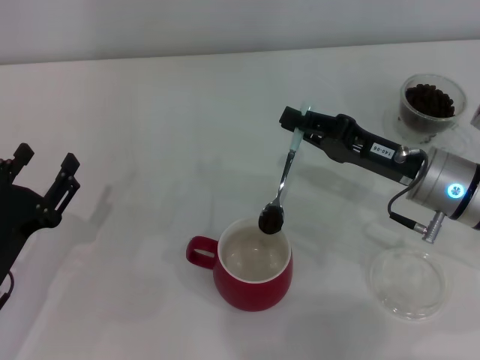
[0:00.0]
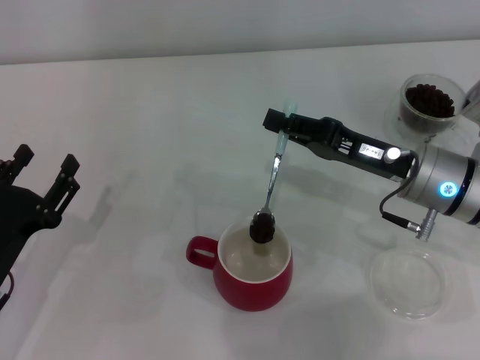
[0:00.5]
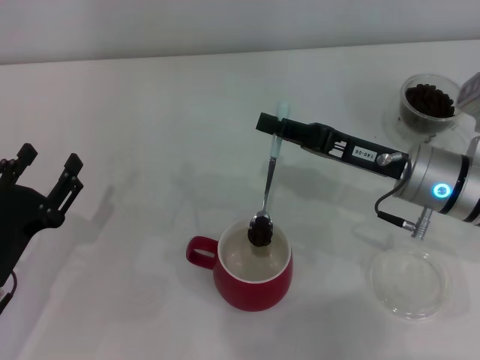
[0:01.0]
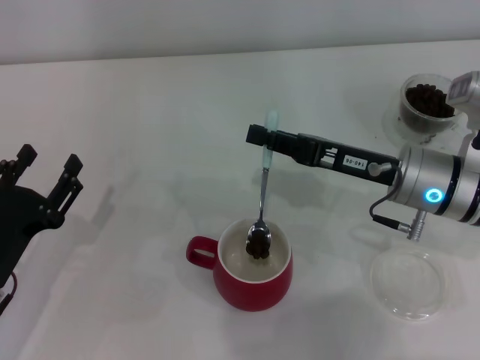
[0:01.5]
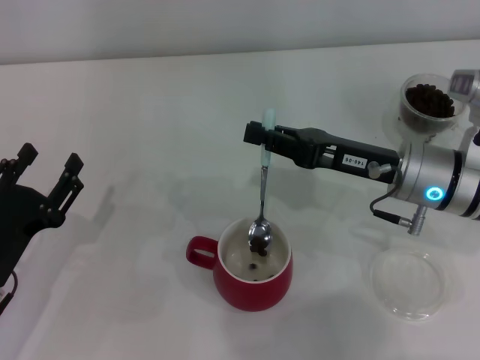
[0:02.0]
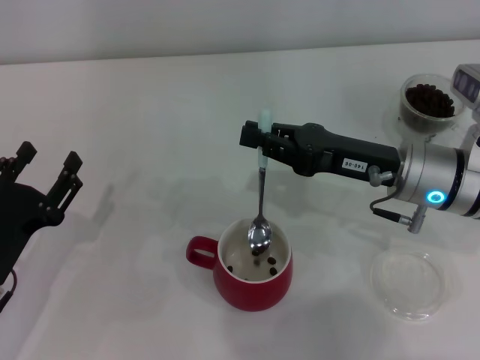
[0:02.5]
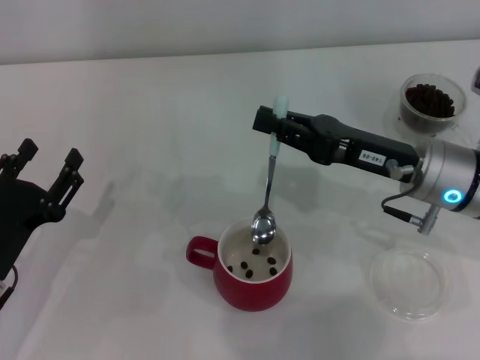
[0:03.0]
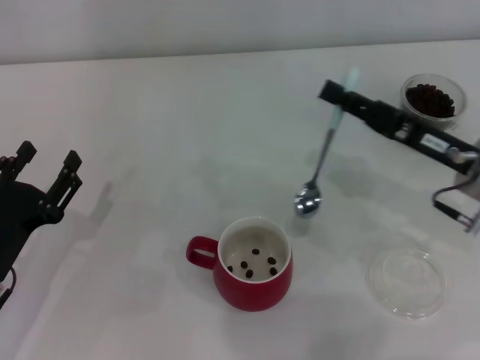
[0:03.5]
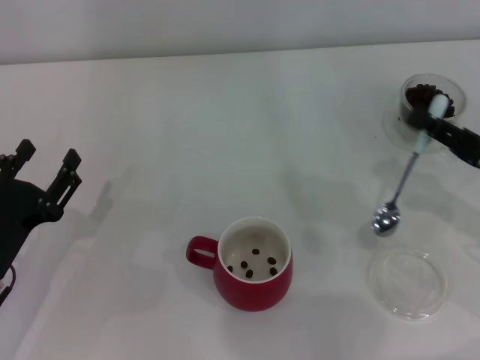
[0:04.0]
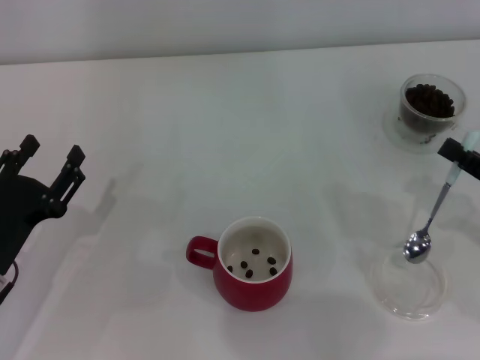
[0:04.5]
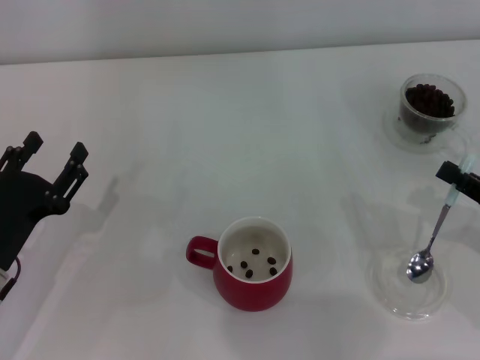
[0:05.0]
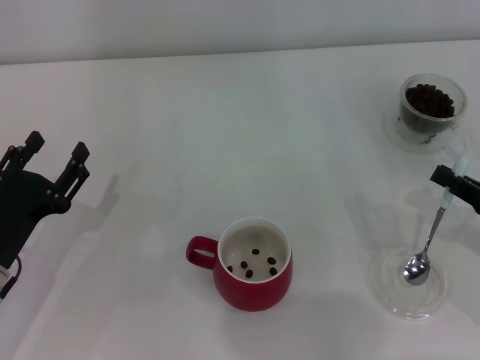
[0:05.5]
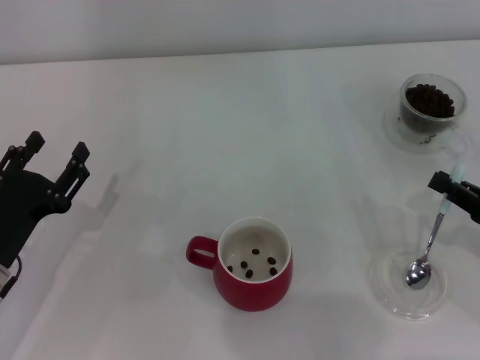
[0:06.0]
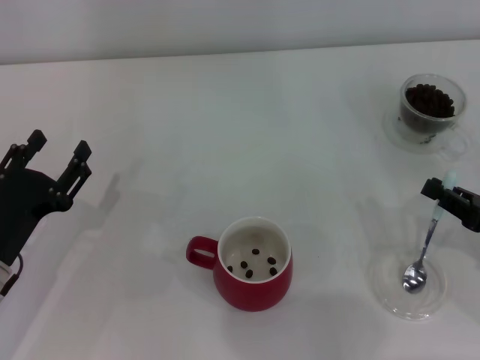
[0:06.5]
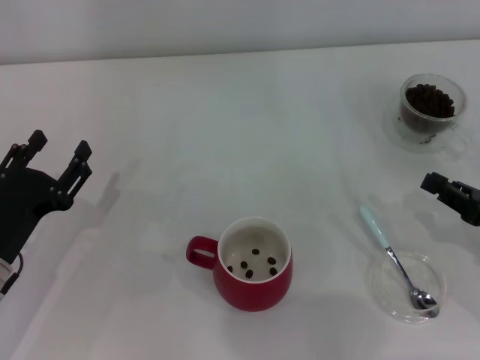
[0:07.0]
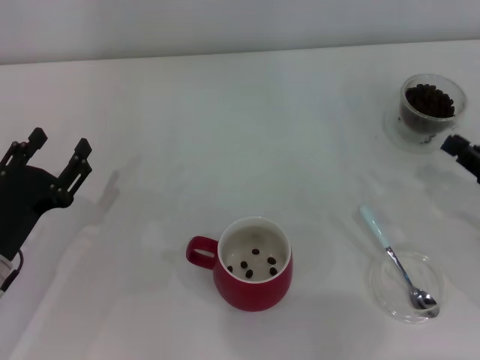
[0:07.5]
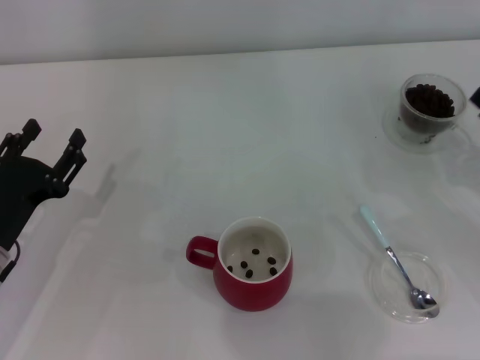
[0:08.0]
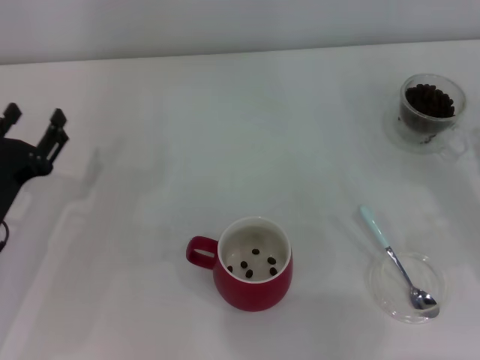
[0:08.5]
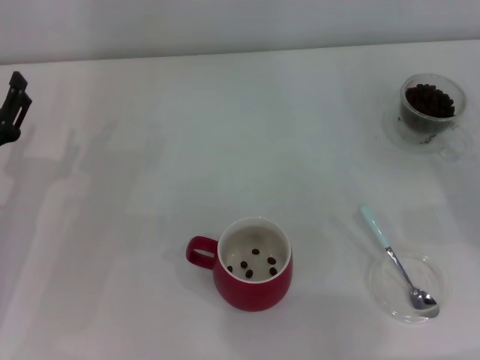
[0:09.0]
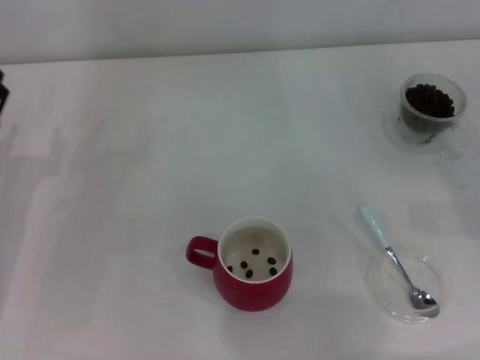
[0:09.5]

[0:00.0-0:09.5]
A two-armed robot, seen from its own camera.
Task of the whole recording: Use a blue spoon to take out the coffee beans from the glass and pour them into the red cup.
Step, 0:00.0 to 0:03.0: Scoop a spoonful of beans into the cup with the right gripper.
Step, 0:03.5 to 0:07.0: Place the spoon back in its original place with the right gripper.
0:02.0 to 0:04.0: The right gripper travels to the right and backward by roughly 15 cm.
0:04.0 to 0:05.5: The right gripper shifts by approximately 5 cm.
0:05.5 to 0:07.5: The grippers move only a little.
0:07.5 to 0:09.5: The left gripper shifts by some 5 cm.

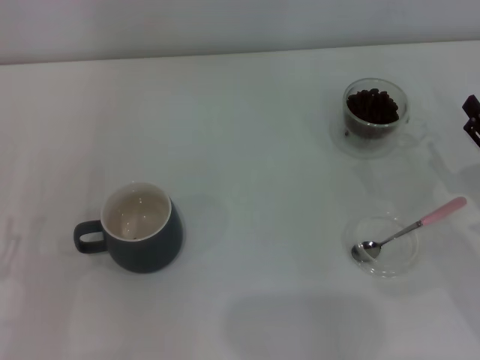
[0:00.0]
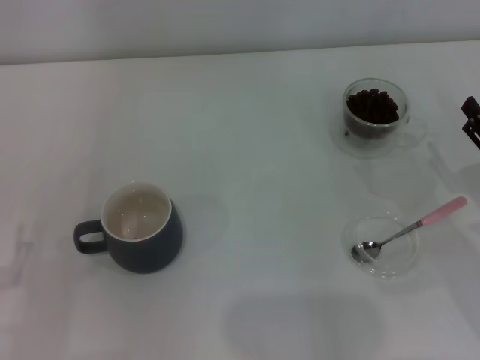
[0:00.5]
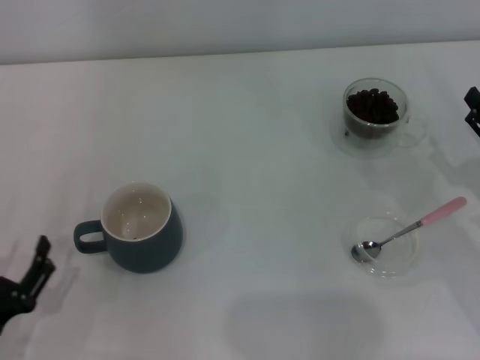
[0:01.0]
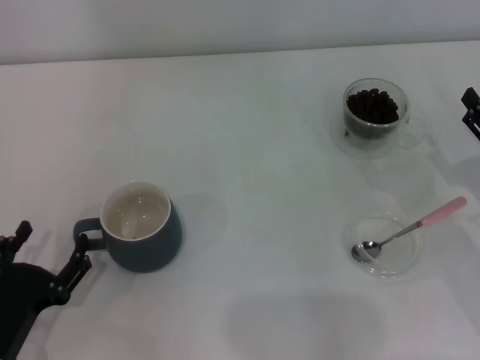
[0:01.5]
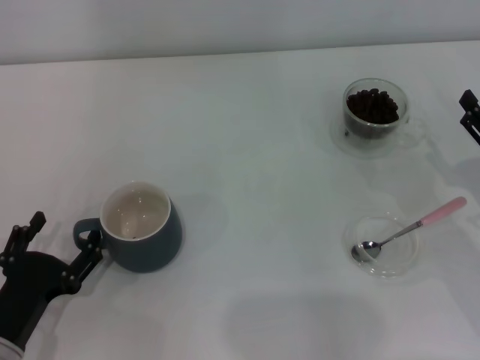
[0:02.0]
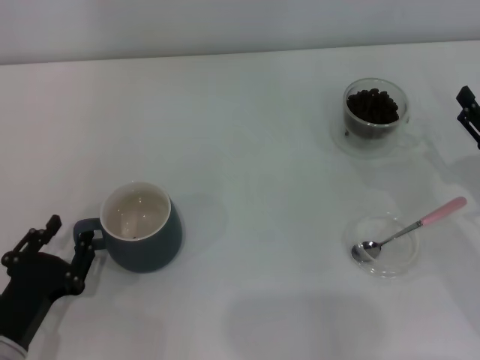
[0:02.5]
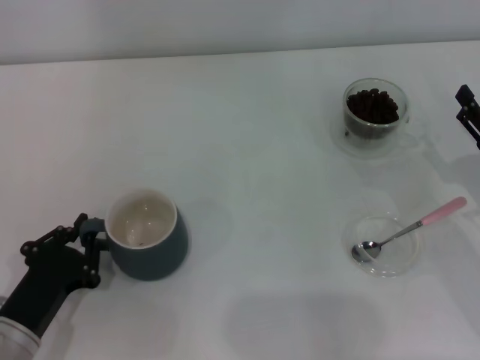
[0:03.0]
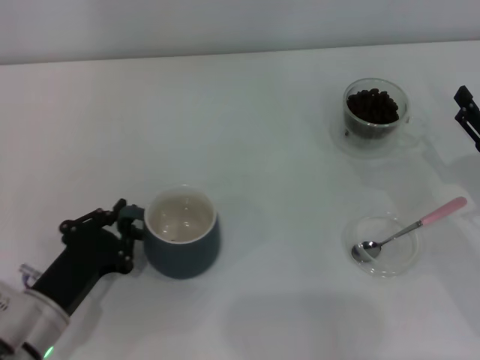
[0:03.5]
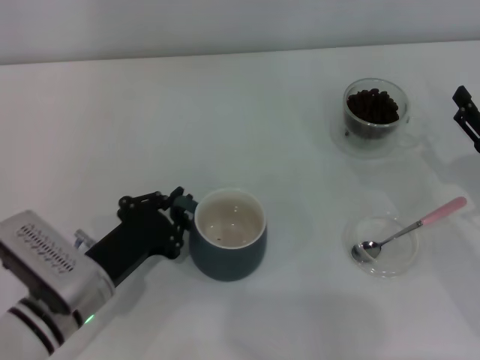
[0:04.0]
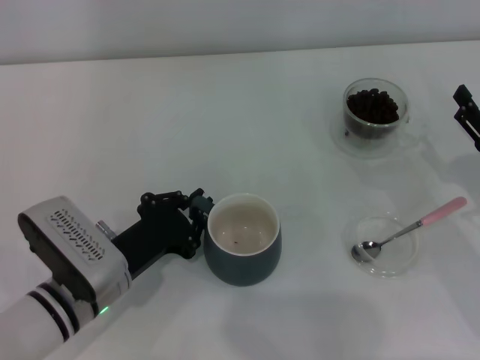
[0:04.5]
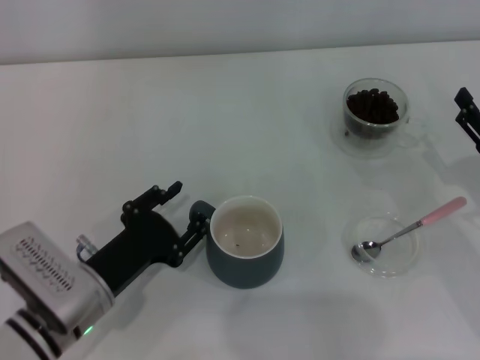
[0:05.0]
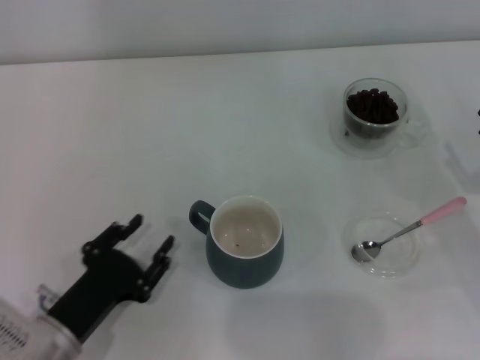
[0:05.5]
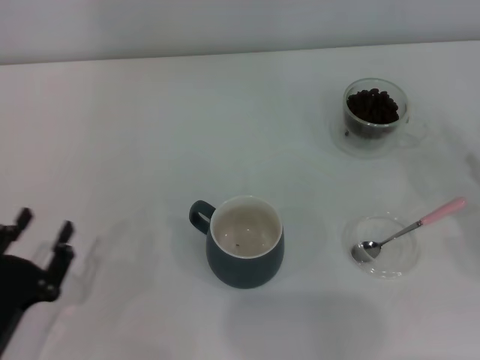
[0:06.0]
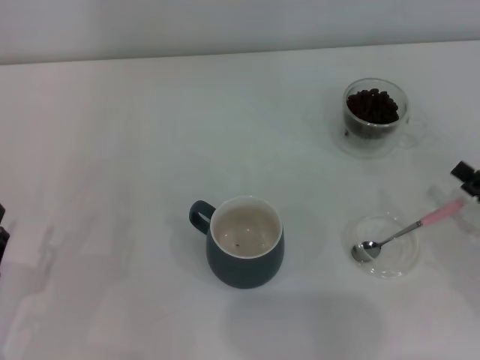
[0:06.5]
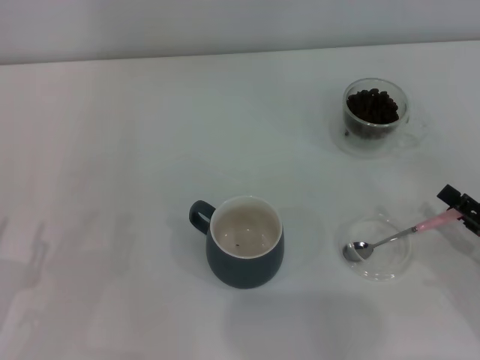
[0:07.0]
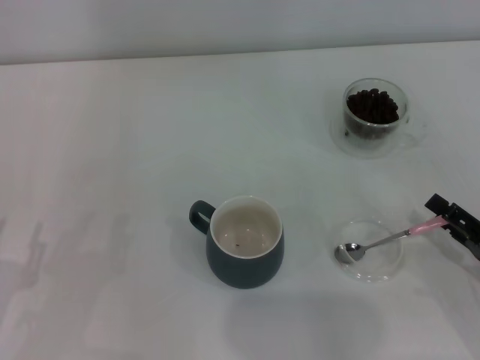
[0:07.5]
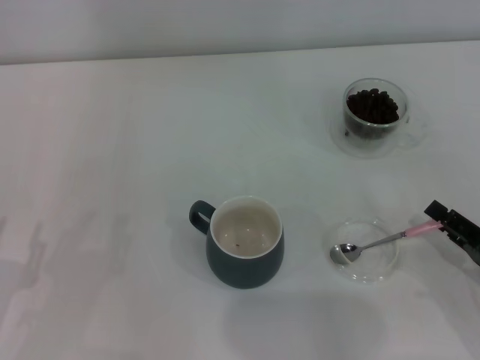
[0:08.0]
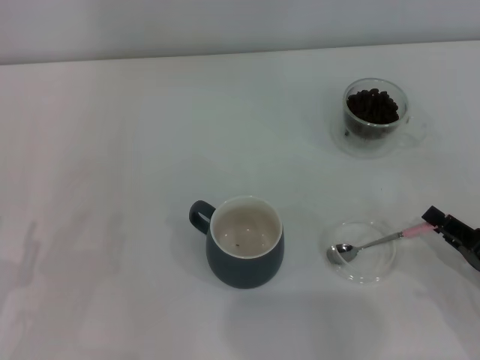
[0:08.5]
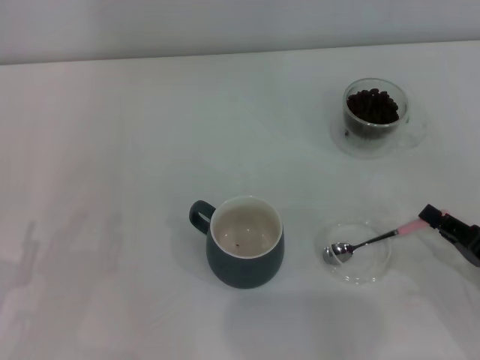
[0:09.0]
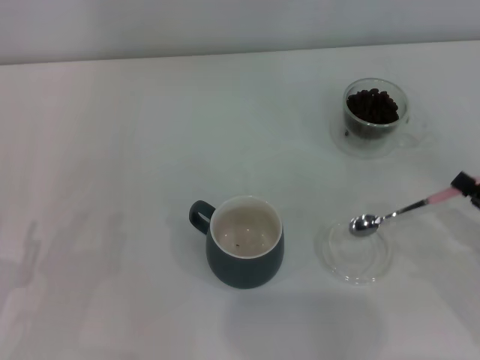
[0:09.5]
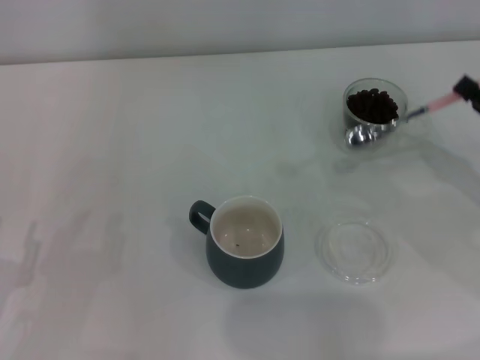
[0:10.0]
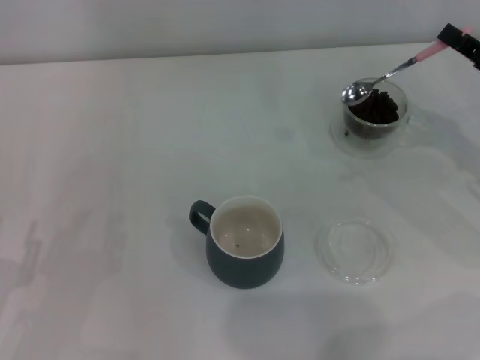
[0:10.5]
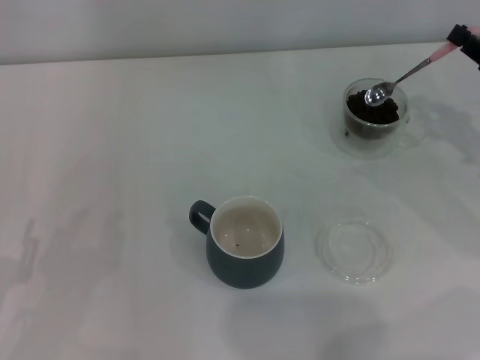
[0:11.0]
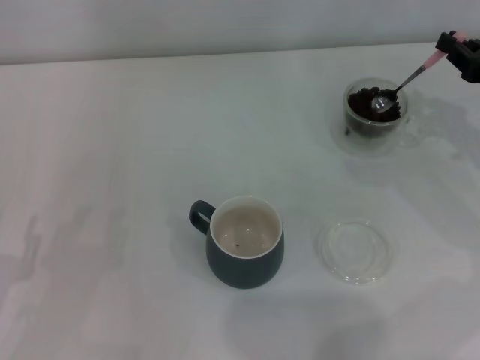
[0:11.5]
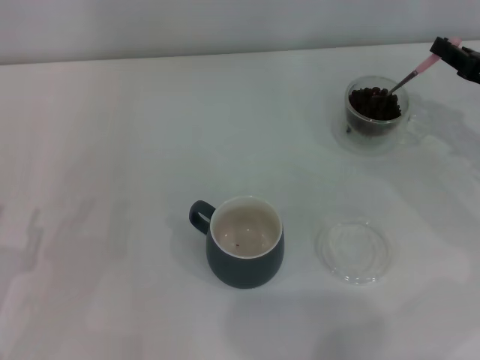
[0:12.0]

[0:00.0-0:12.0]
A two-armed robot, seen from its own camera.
Task of the whole recording: Use a pink spoon to take out the coffee beans from the glass and pour them into the gray cup.
Step, 0:00.0 to 0:05.5: Move the cup to the center of view with the left gripper.
Step, 0:06.0 to 0:09.5: Pick up the spoon with the right gripper.
0:00.0 to 0:02.0: The left gripper goes roughly 5 cm to the right.
0:02.0 to 0:04.0: The left gripper is displaced to the right and forward by about 10 cm, and closes up.
0:04.0 to 0:06.0: The left gripper shifts roughly 10 cm backward and to the left, and opens up, while the right gripper goes about 5 cm to the right.
0:06.0 to 0:08.0: The right gripper is displaced to the left by some 5 cm, and closes up.
0:08.0 to 0:10.0: The right gripper travels forward and upward by some 10 cm, and closes its fingers.
0:10.0 to 0:12.0: The right gripper is displaced forward by some 10 cm.

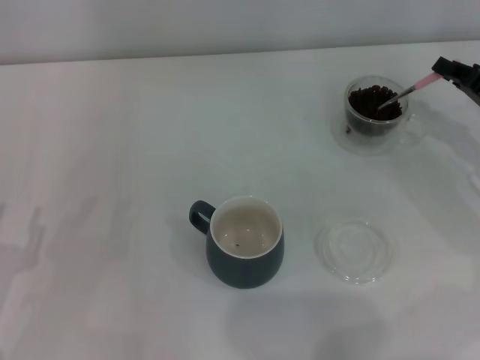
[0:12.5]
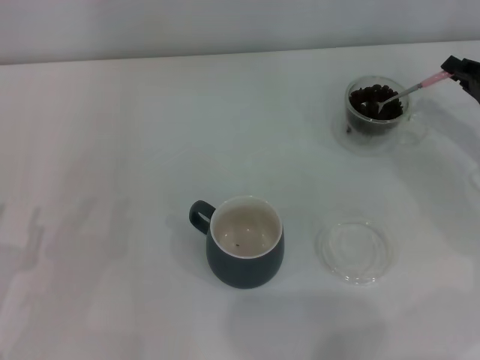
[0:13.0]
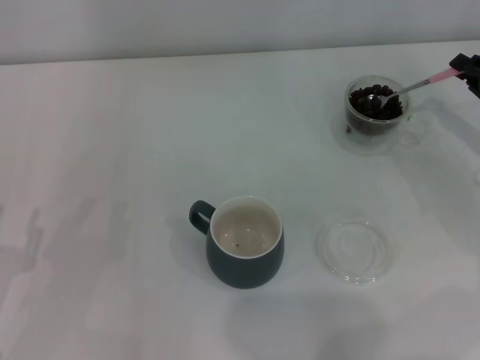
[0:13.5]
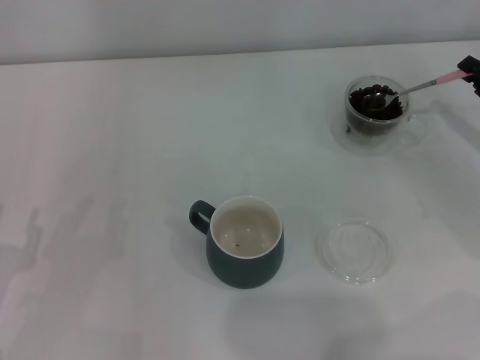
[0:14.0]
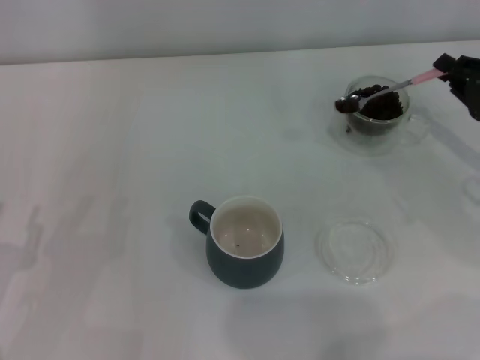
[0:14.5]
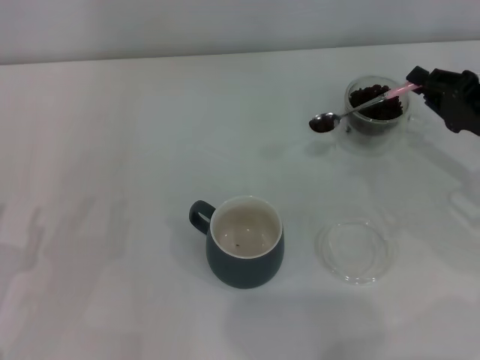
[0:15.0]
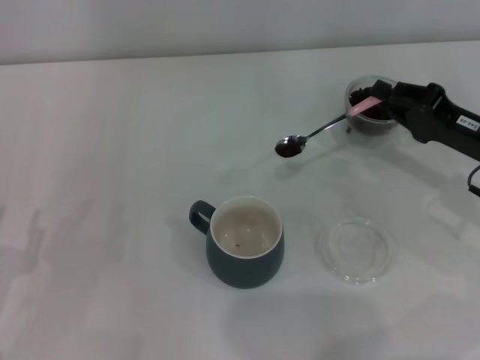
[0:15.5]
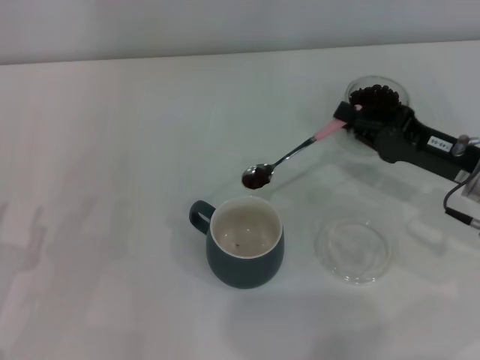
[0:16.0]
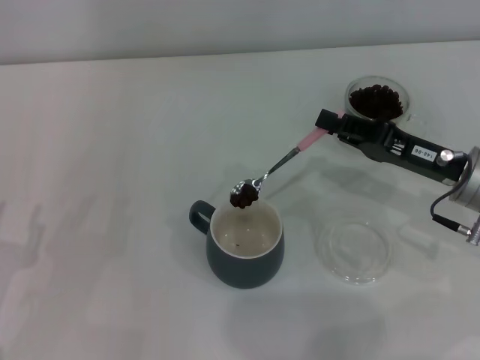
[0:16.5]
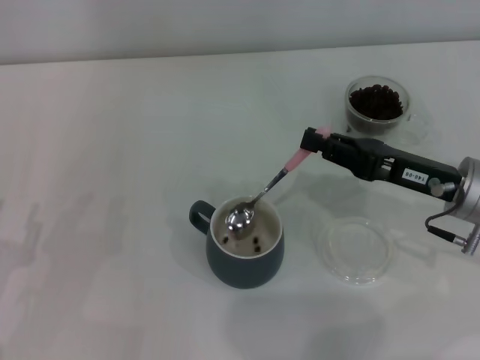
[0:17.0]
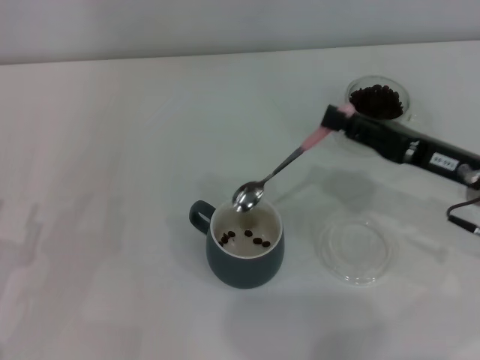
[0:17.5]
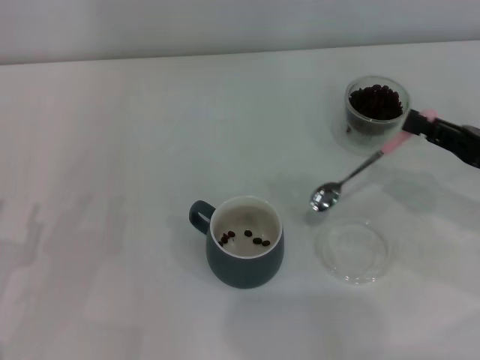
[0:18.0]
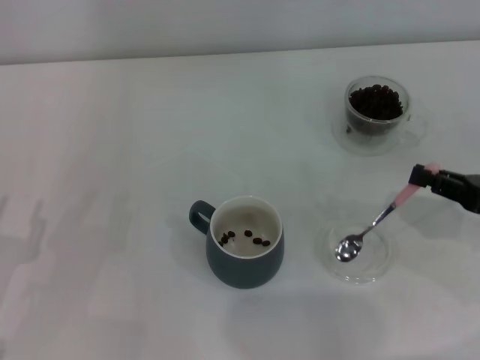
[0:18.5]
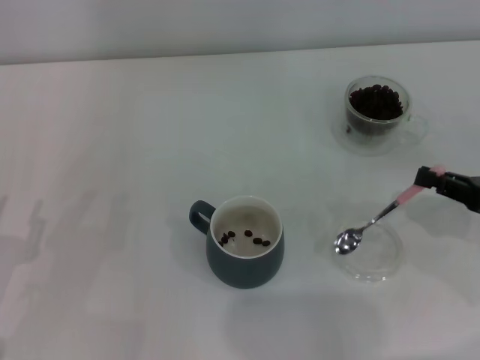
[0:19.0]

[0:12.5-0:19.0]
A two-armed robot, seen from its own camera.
Task of the whole recording: Use a pink spoon to take out the coffee beans from the glass and pour them into the gray cup.
Step, 0:12.5 to 0:17.5: Scoop a spoonful of beans into the cup with the right gripper.
0:14.5 to 0:17.0: The right gripper shifts about 10 cm to the left.
0:17.0 to 0:19.0: The right gripper goes some 10 cm to the right and backward.
